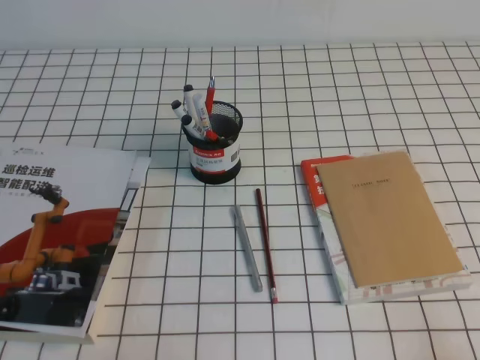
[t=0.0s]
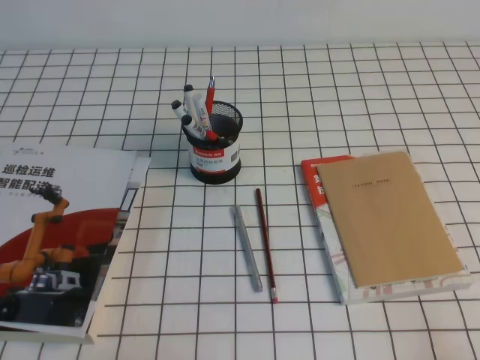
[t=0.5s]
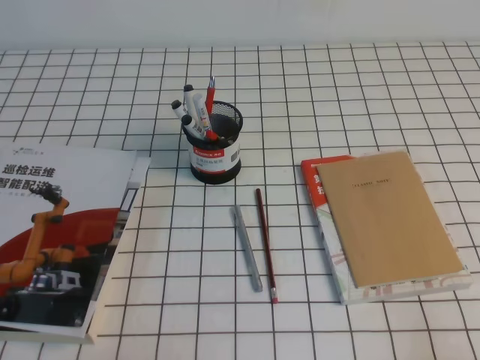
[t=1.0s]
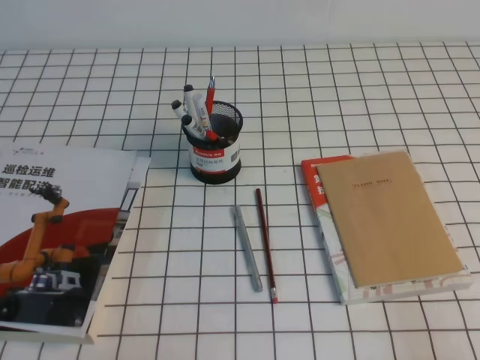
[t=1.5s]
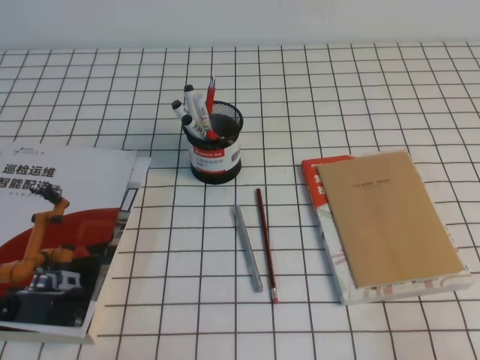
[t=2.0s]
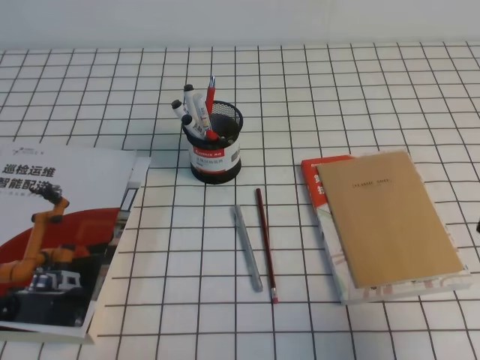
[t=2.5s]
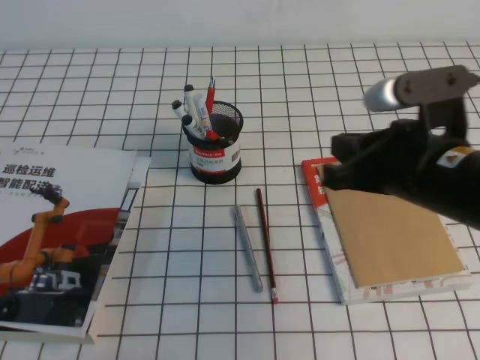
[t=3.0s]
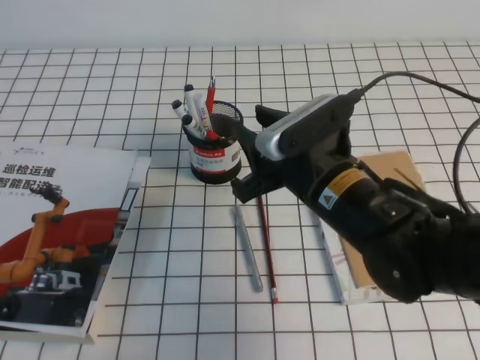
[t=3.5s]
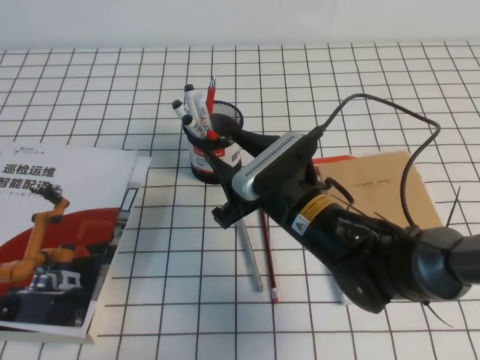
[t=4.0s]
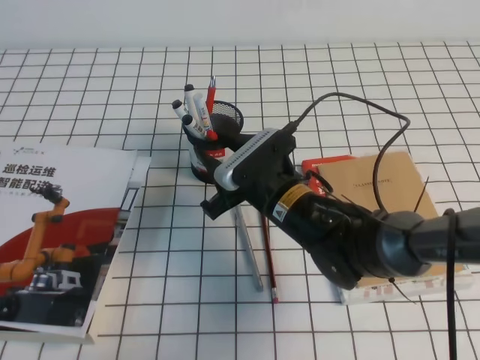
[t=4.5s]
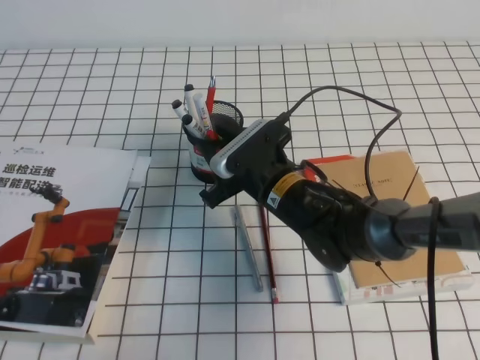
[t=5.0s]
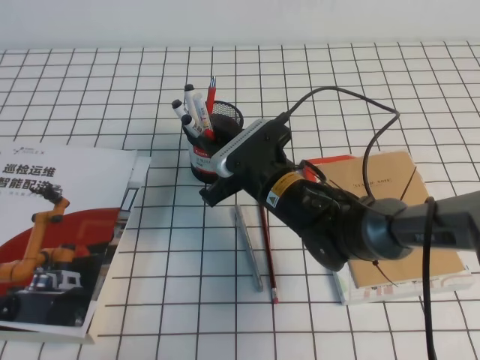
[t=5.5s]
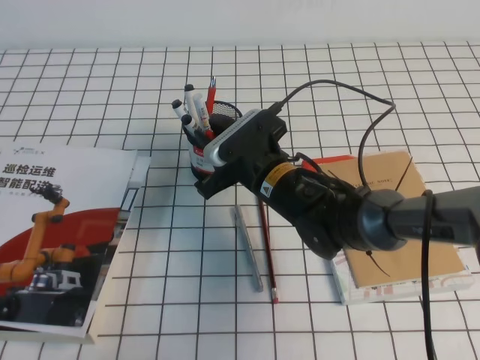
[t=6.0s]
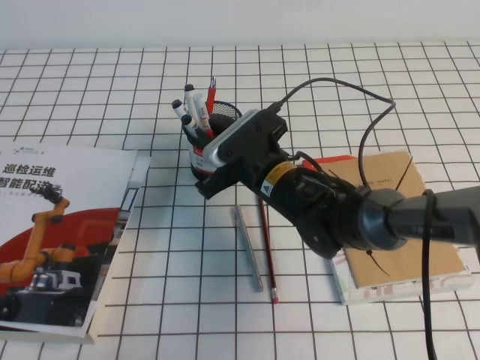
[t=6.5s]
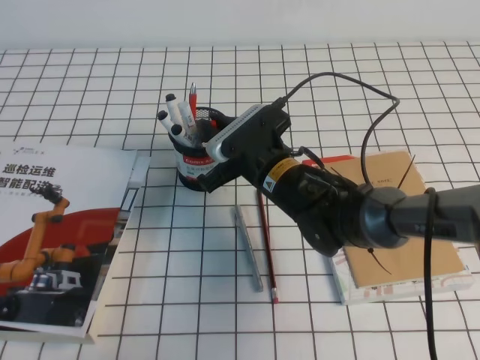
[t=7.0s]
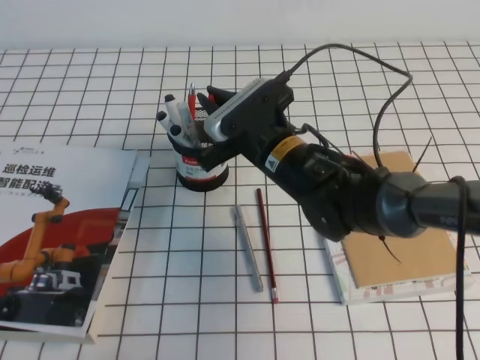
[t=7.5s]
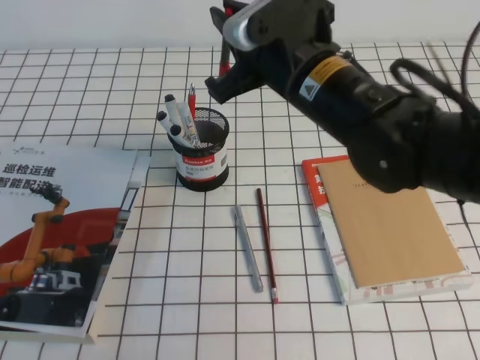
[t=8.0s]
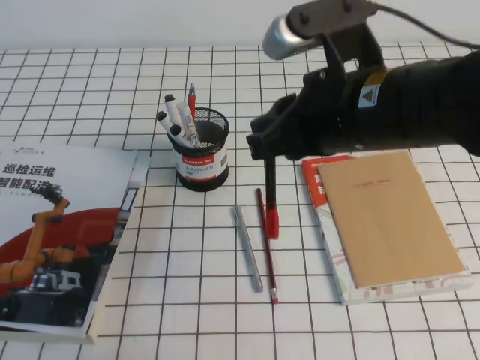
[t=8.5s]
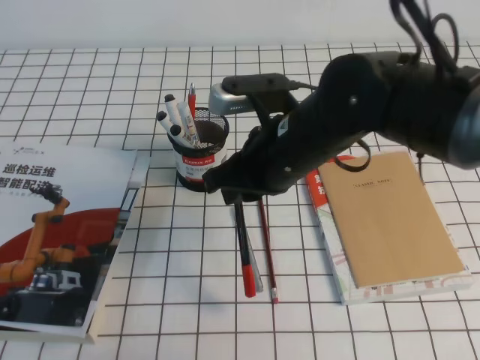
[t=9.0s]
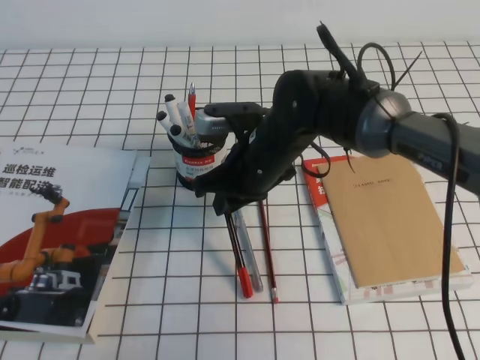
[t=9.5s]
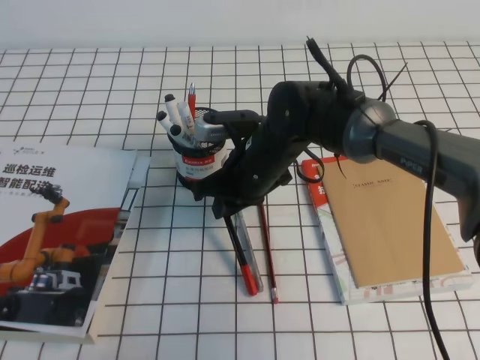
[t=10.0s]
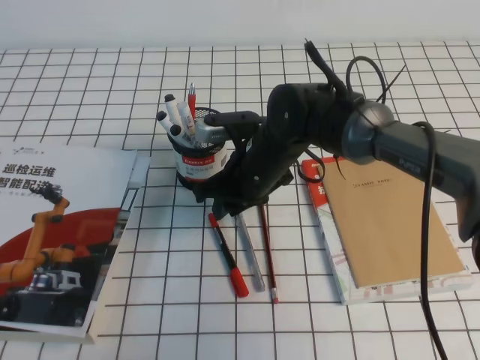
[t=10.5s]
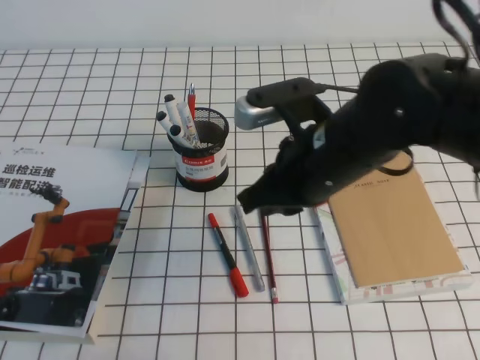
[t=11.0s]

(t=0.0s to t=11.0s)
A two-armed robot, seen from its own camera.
t=2.0s - t=3.5s: The right gripper shifts approximately 30 cm to the left and forward, and opens.
t=3.5s - t=5.5s: The right gripper goes approximately 15 cm downward, forward and to the left, and opens, then closes again.
t=5.5s - t=7.5s: The right gripper is displaced upward by some 5 cm, and closes its fingers.
t=7.5s - t=9.0s: The right gripper moves upward and backward, roughly 10 cm.
t=9.0s - t=11.0s: The right gripper goes downward and returns, about 10 cm each way.

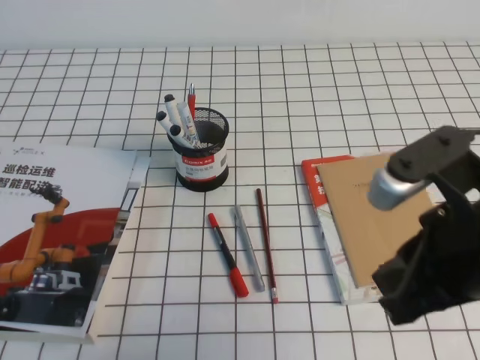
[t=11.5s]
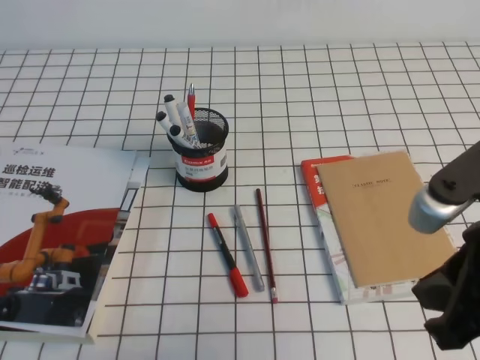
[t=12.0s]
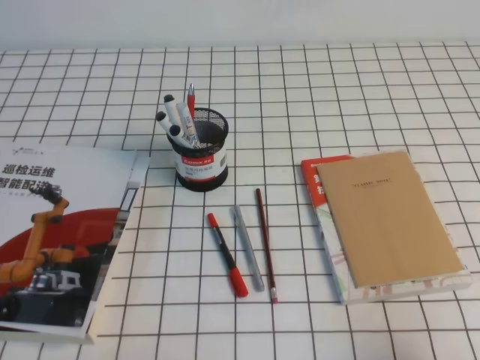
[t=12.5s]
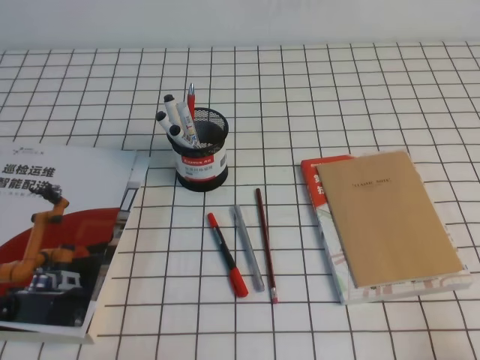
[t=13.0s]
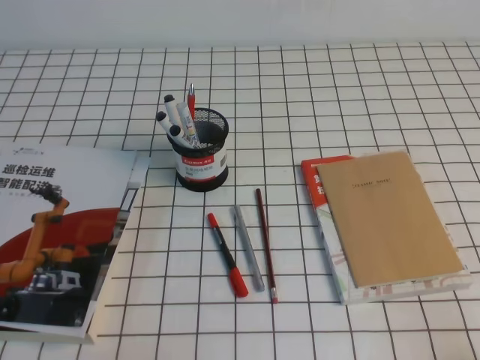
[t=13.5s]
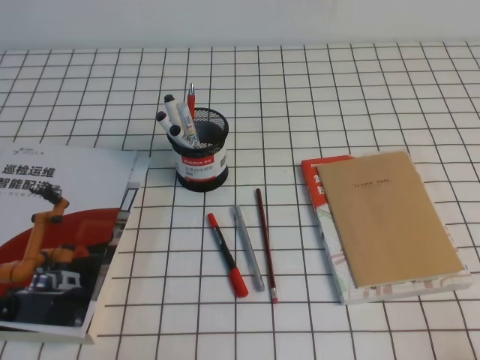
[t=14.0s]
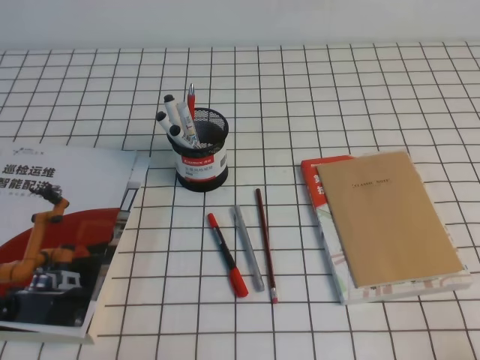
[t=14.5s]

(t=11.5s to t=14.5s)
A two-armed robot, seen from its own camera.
Step, t=11.5s - t=14.5s: Pick up the pen from the pen holder.
t=11.5s - t=13.0s: The right gripper is displaced to the right, downward and backward by about 25 cm.
